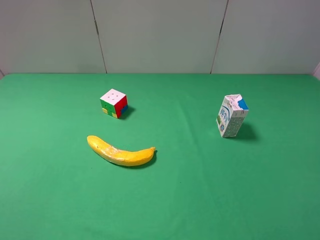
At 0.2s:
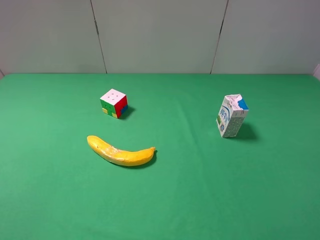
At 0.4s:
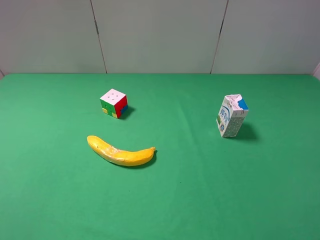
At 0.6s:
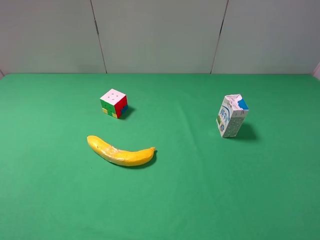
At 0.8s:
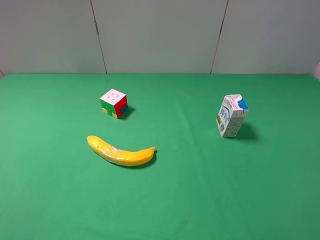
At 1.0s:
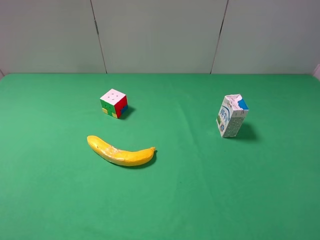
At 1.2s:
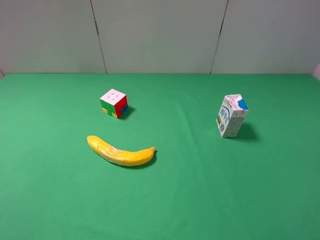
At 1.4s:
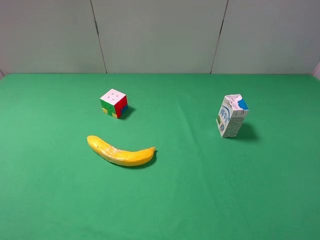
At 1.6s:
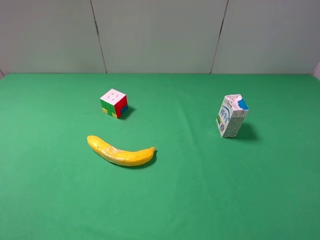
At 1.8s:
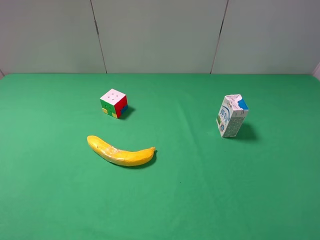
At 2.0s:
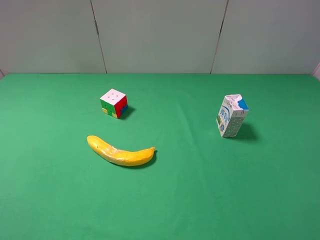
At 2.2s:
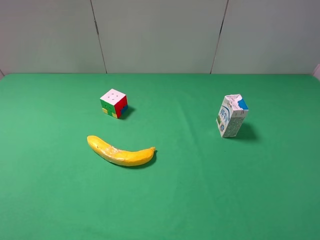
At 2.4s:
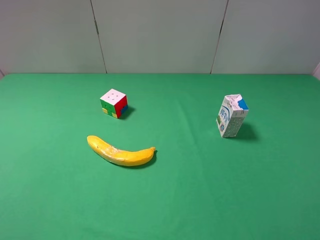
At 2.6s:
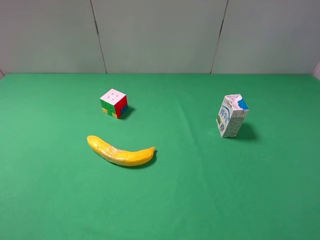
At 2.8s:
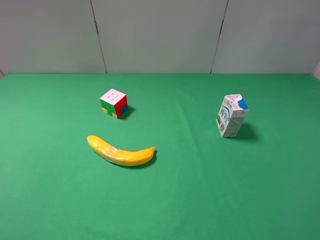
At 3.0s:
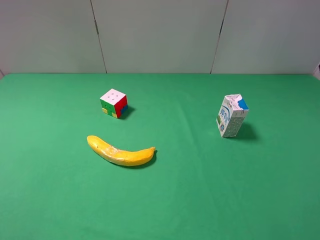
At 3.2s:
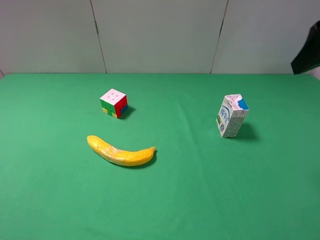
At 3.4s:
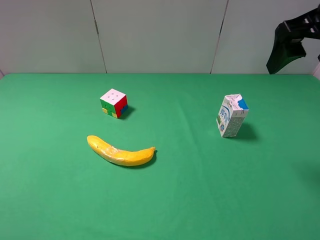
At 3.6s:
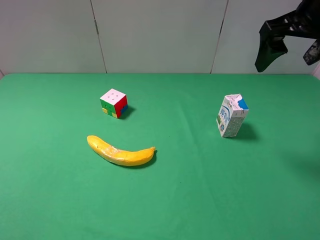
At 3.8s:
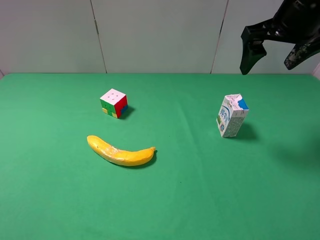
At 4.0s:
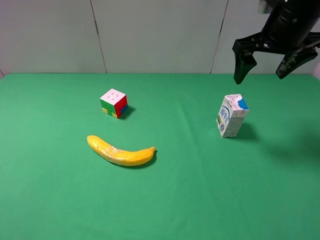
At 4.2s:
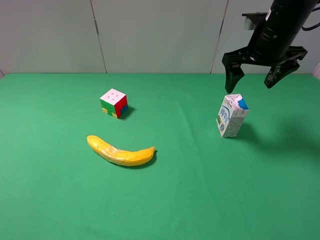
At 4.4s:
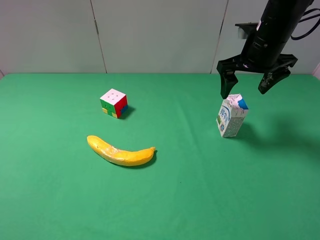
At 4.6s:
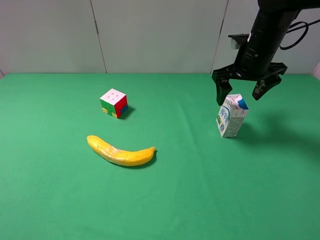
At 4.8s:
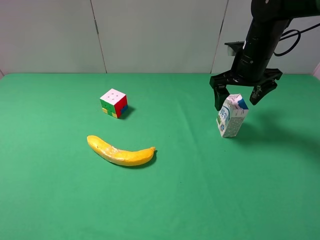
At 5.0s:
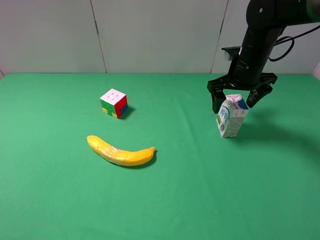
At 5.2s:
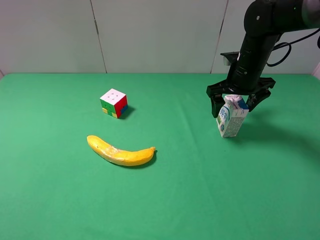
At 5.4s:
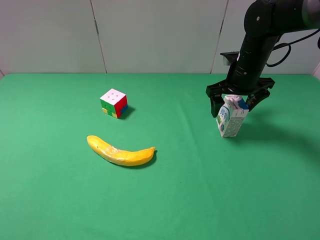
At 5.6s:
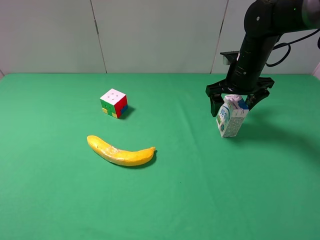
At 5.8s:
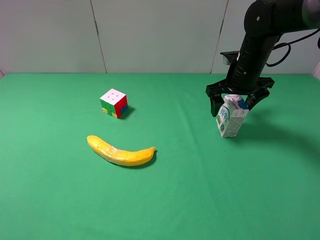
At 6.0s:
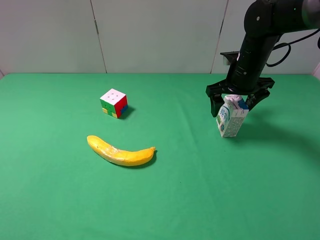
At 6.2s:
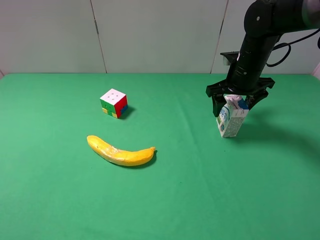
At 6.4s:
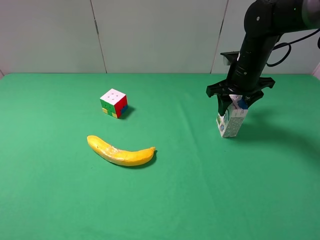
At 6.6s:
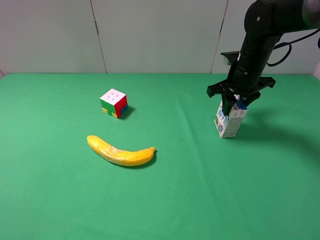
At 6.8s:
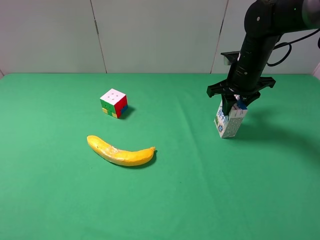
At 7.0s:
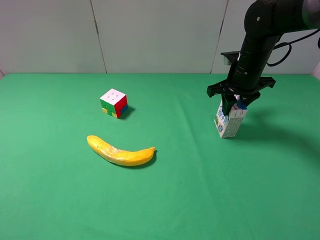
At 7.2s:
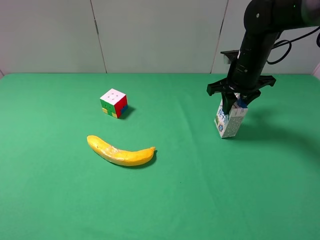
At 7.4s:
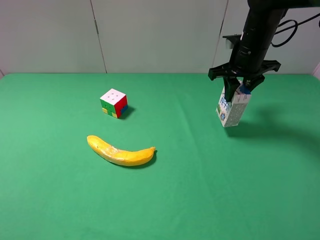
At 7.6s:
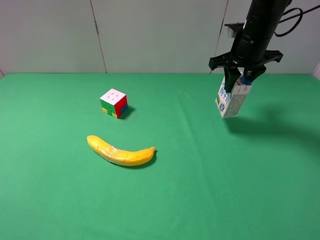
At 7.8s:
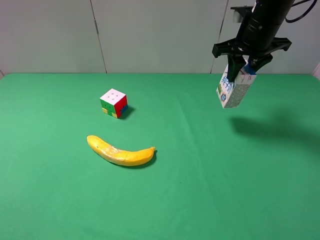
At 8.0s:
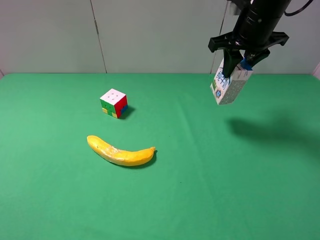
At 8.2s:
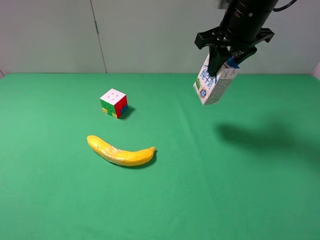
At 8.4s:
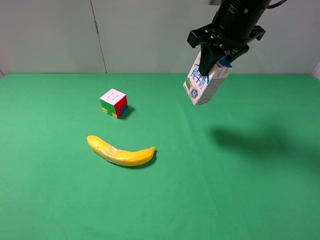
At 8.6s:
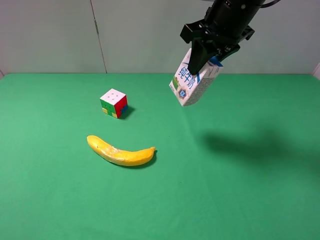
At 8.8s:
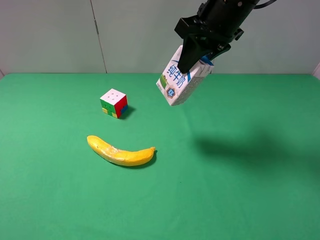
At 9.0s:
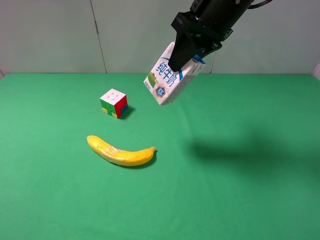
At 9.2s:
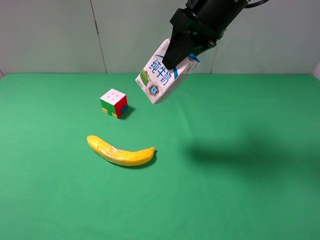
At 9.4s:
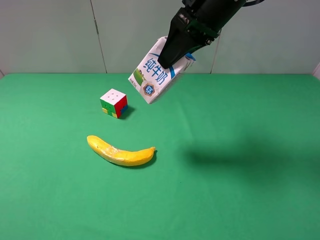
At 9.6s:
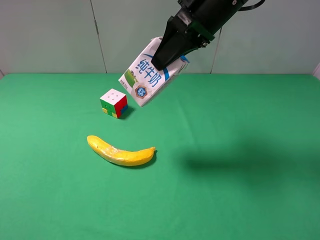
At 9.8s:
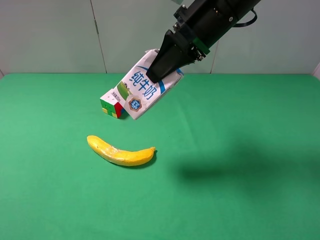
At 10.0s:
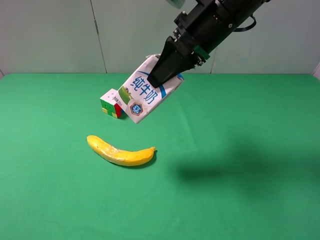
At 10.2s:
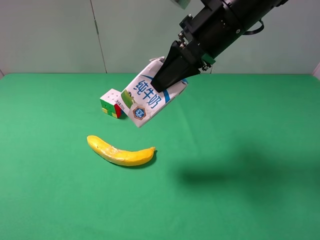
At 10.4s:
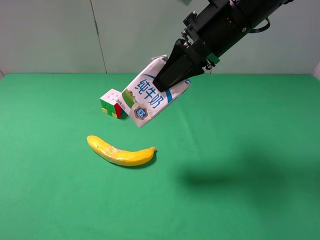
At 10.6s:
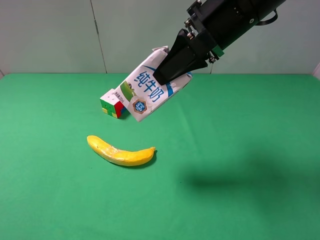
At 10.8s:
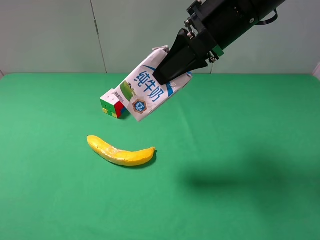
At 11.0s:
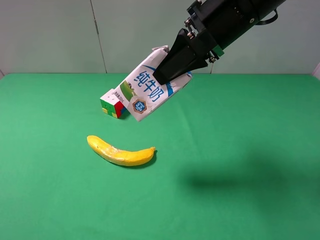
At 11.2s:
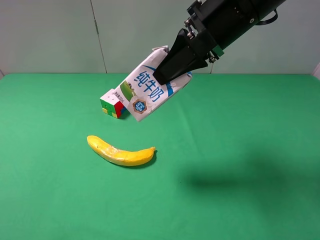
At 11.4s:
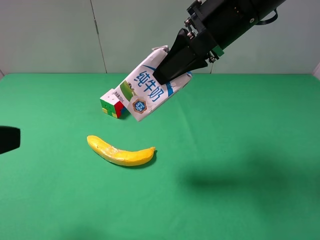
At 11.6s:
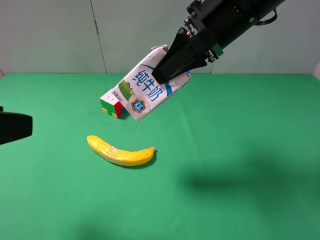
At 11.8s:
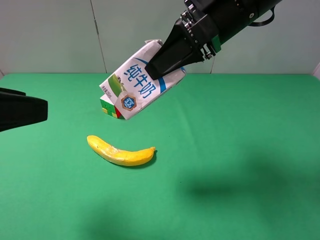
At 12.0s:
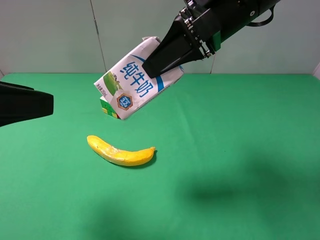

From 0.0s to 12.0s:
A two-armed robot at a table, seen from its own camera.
Task of the whole recording: use the right gripper to pick up the item and transfer it from the right gripper to the left gripper.
From 0.0s to 1.6s: Neither gripper changes place.
From 3.0s to 4.4s: The right gripper heads forward, downward and to the left, covering approximately 20 cm.
From 4.4s to 6.0s: The right gripper is displaced downward by roughly 5 cm.
From 6.0s to 7.6s: The right gripper is displaced upward by approximately 5 cm, and closes up.
From 7.6s to 9.0s: The right gripper goes some 15 cm to the left, upward and backward.
From 10.4s to 12.0s: The left gripper moves forward, some 15 cm.

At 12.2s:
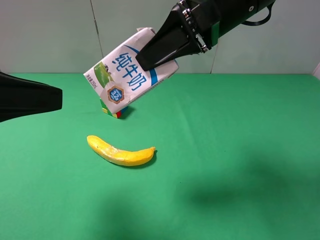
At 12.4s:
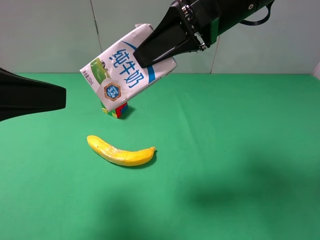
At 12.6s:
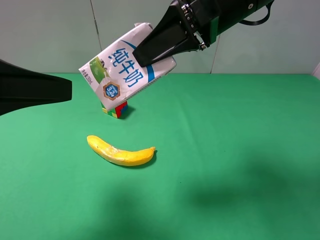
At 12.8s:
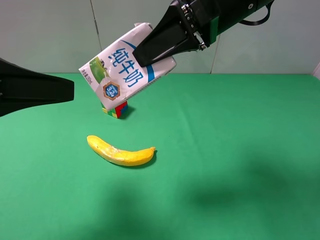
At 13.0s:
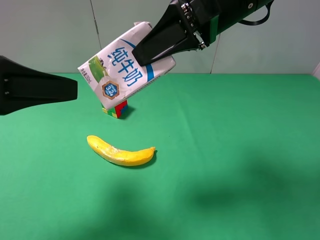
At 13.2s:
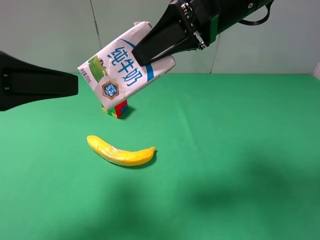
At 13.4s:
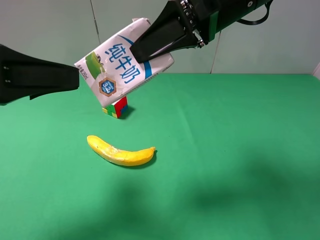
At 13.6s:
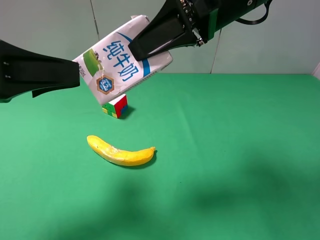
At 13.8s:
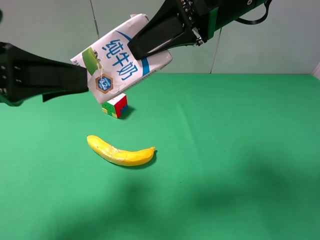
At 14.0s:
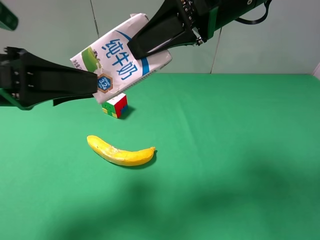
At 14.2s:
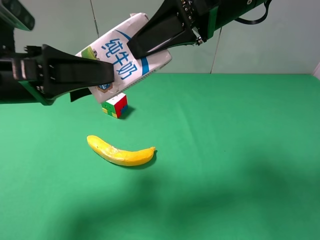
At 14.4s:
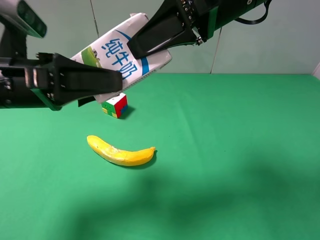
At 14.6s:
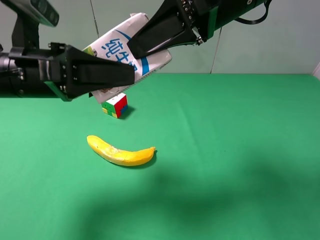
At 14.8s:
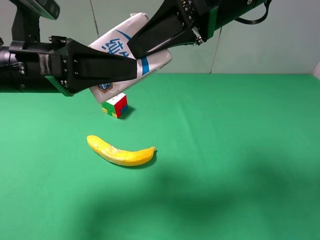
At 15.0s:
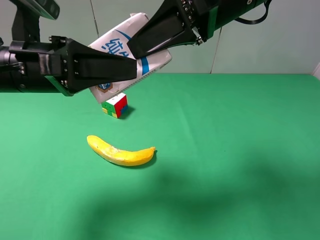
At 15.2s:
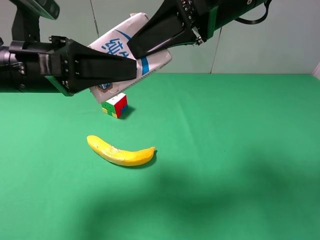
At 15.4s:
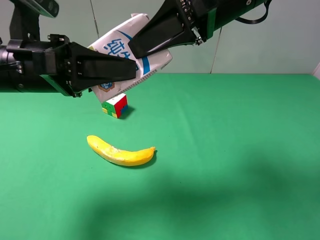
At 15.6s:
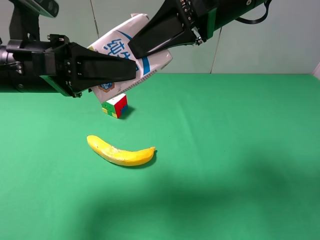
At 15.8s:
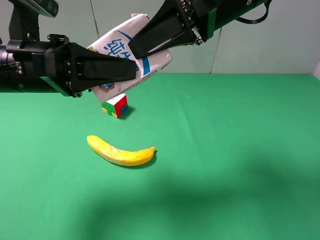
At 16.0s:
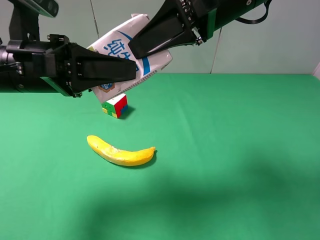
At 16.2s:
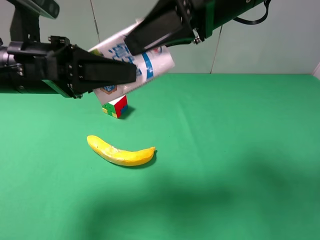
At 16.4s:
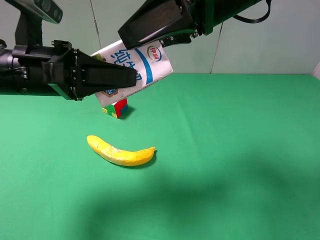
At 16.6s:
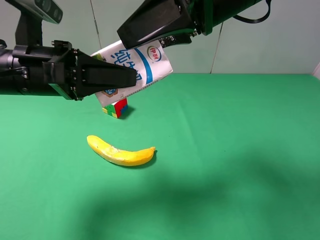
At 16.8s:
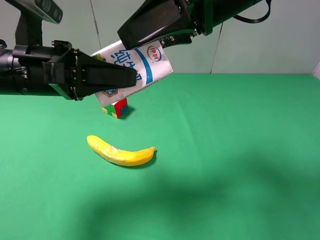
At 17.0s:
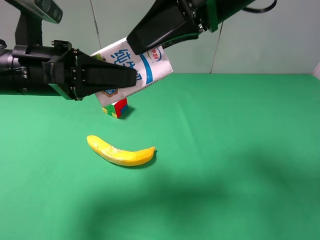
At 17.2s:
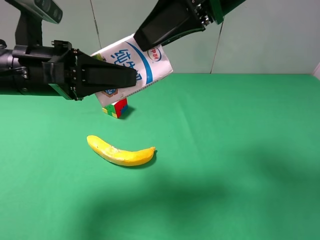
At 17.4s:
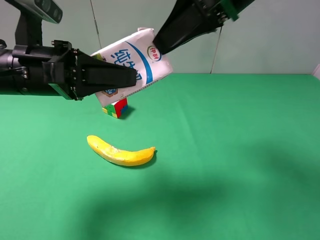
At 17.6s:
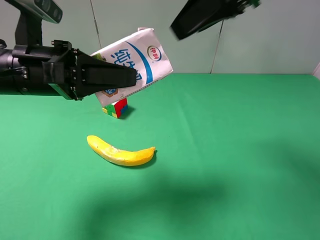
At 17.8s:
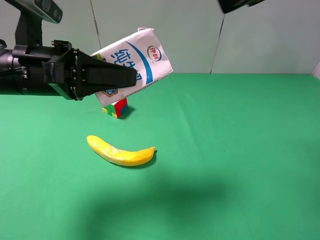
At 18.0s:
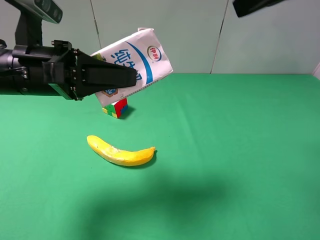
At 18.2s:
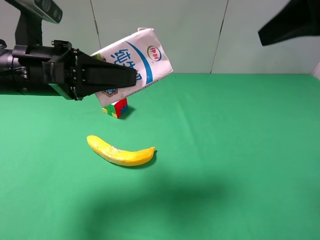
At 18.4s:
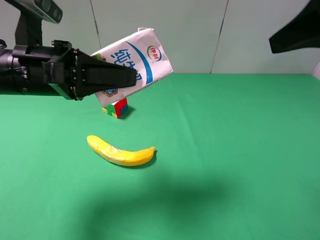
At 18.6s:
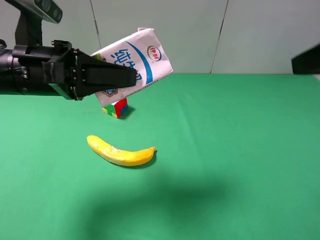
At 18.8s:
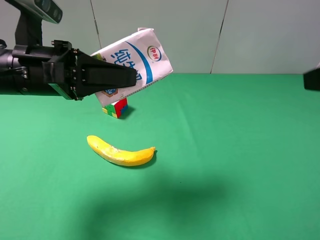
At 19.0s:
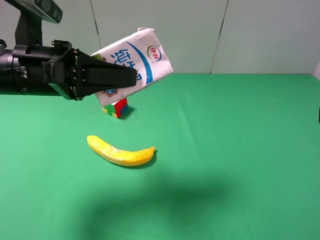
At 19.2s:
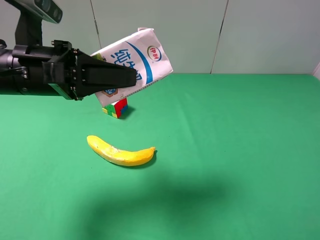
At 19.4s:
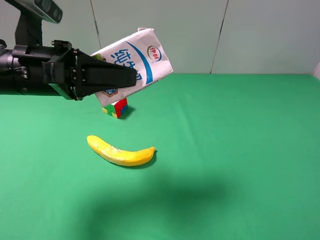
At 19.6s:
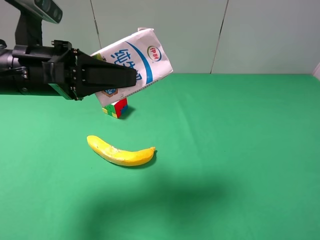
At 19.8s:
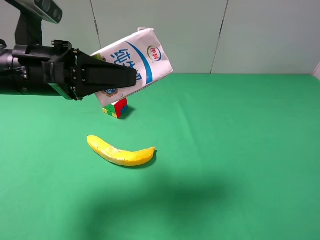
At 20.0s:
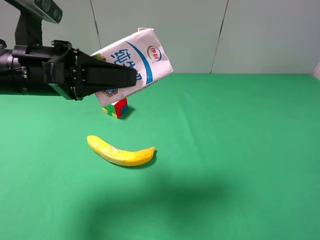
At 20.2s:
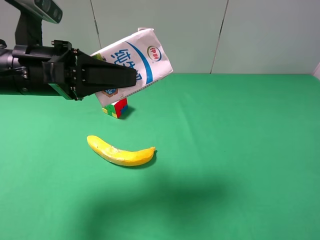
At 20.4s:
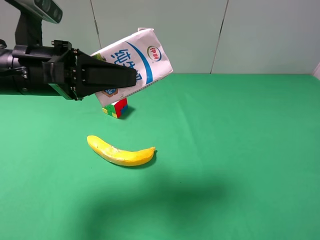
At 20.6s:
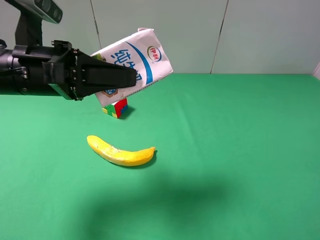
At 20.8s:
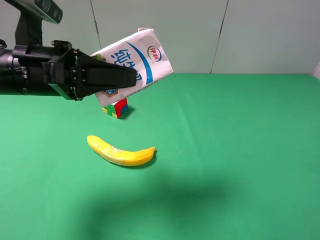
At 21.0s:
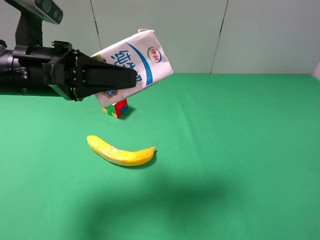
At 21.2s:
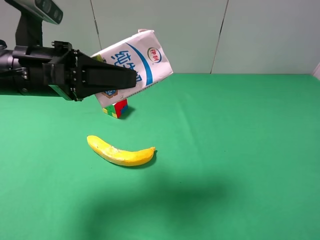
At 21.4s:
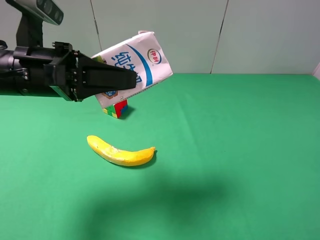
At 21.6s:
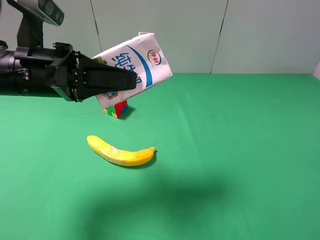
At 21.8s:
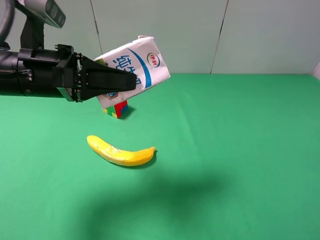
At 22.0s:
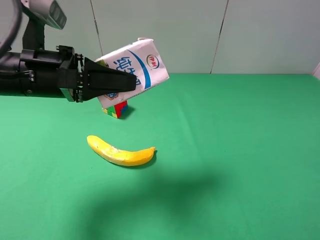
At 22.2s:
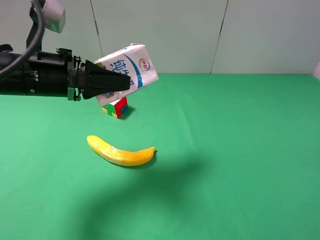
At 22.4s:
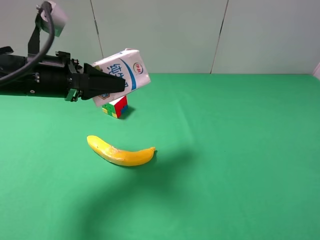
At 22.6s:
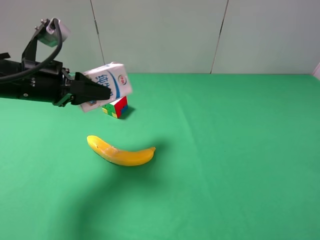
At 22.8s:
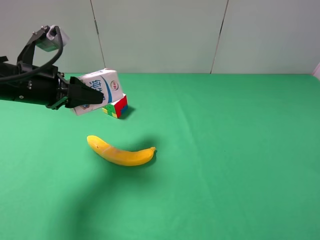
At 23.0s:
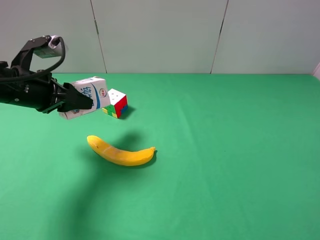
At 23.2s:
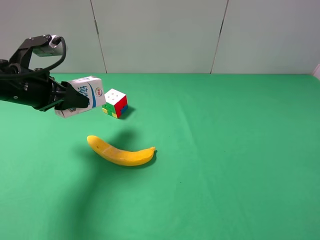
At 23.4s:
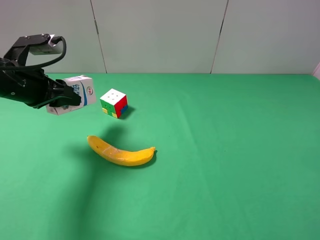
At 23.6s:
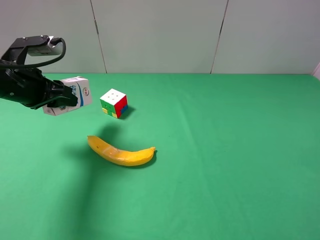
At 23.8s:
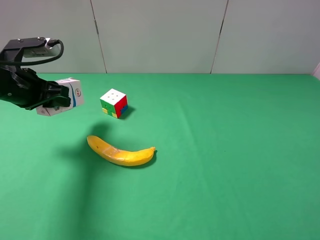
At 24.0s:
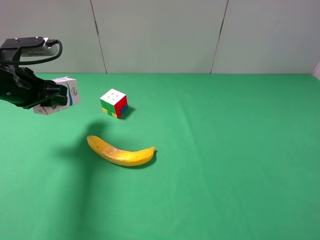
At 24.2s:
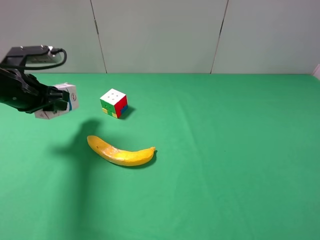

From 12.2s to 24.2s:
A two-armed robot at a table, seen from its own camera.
Task of the whole recording: use the right gripper to pick up the item and transfer it from the right gripper to the left gripper.
Step, from 12.2s to 16.6s: Pass the milk to the left gripper.
From 12.2s to 13.8s: The left gripper ends up approximately 5 cm from where it was.
From 13.8s to 15.2s: The left gripper shifts some 5 cm to the right.
From 15.2s to 16.6s: The left gripper closes its fingers. Meanwhile the right gripper opens its fingers.
From 16.6s to 18.2s: The right gripper travels to the right and backward by approximately 15 cm.
From 18.2s to 19.8s: The right gripper heads backward and downward, covering about 20 cm.
From 21.2s to 22.6s: The left gripper shifts some 5 cm to the left.
From 22.6s to 24.2s: The left gripper moves to the left, approximately 5 cm.
